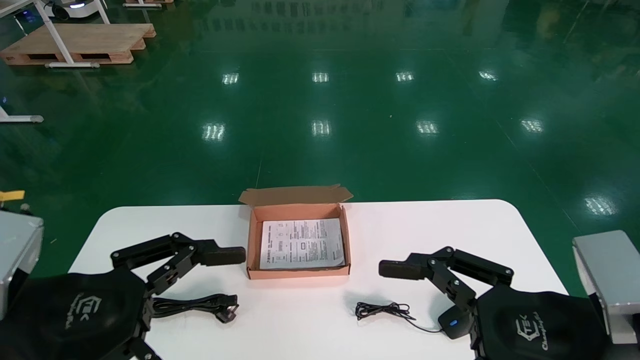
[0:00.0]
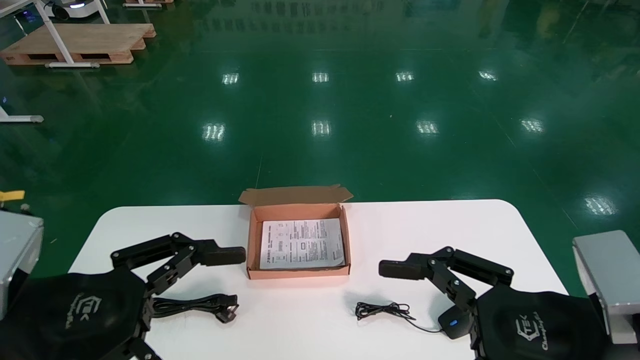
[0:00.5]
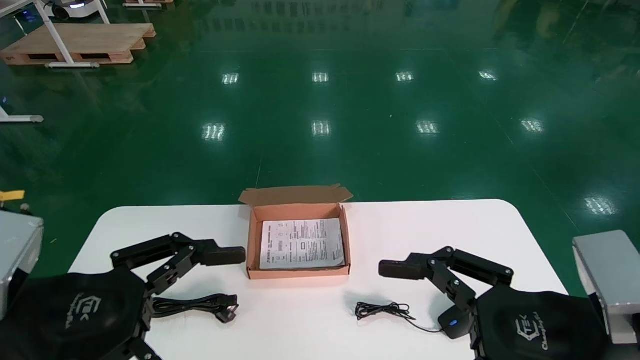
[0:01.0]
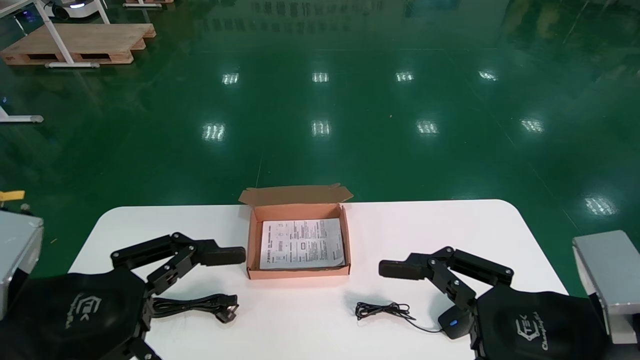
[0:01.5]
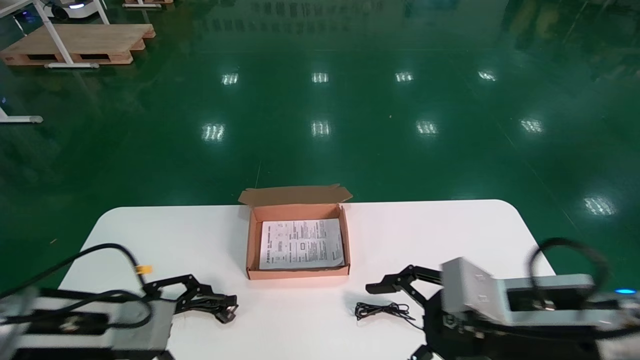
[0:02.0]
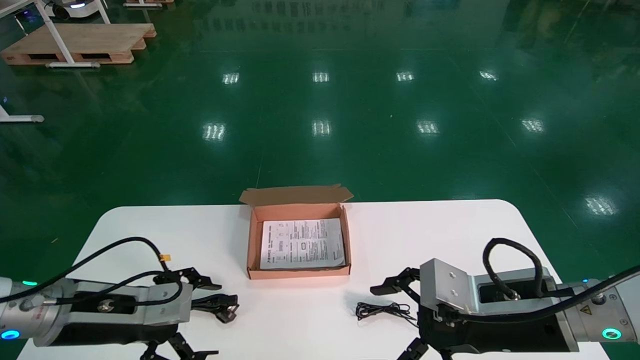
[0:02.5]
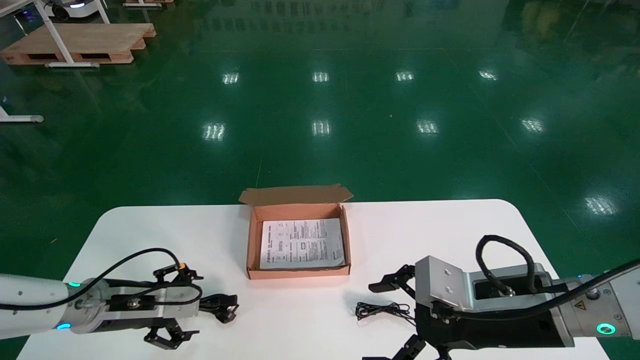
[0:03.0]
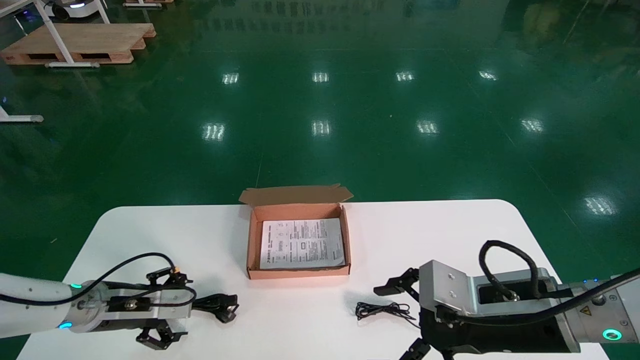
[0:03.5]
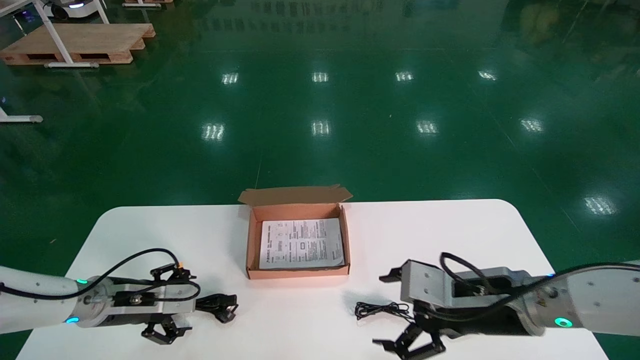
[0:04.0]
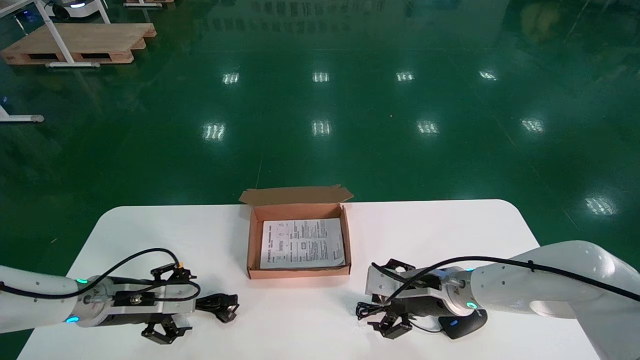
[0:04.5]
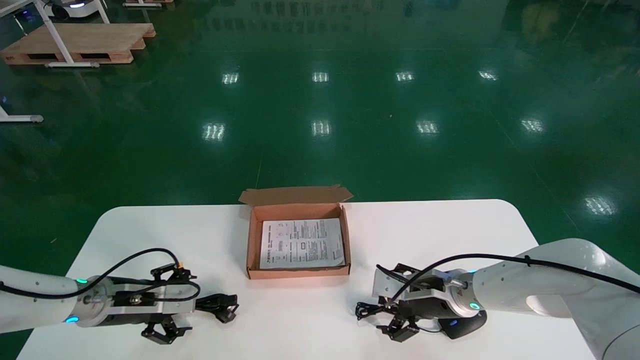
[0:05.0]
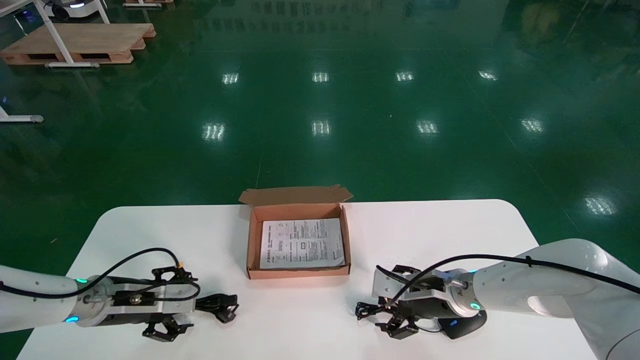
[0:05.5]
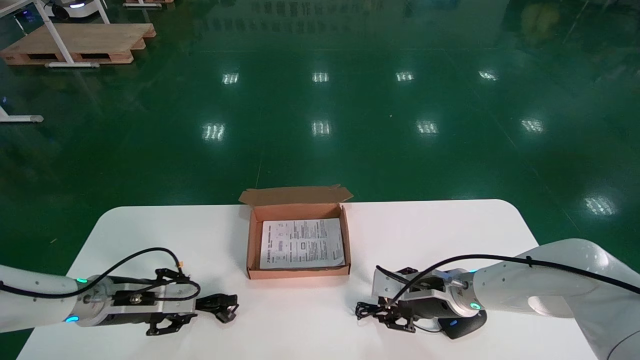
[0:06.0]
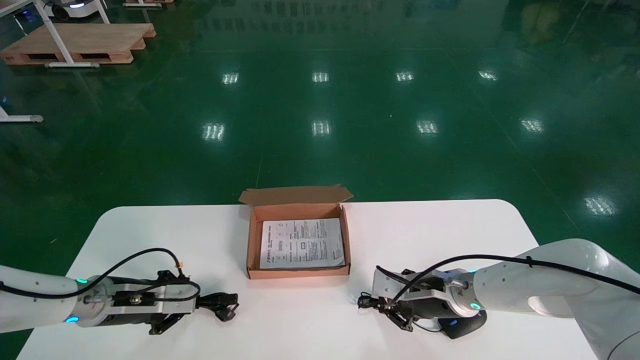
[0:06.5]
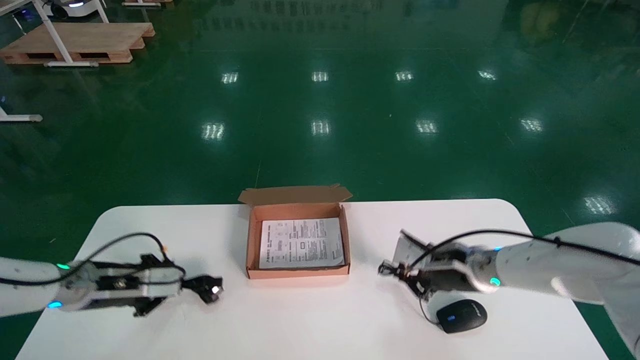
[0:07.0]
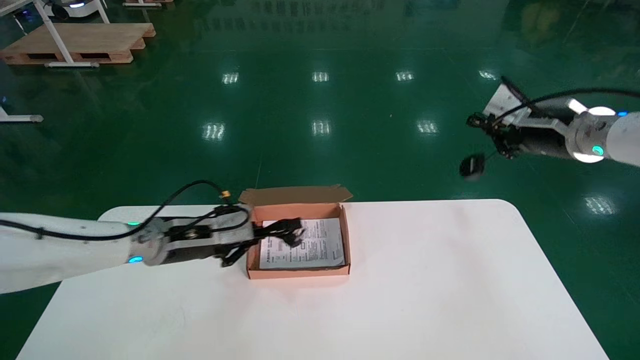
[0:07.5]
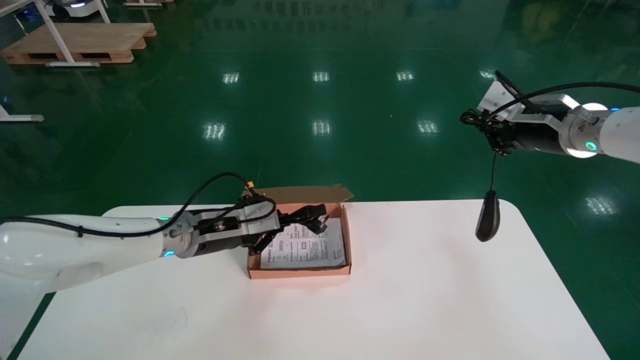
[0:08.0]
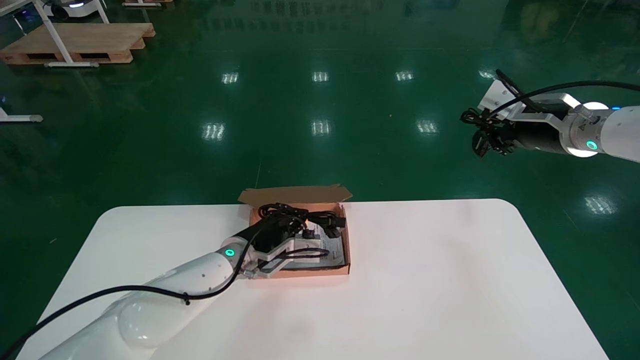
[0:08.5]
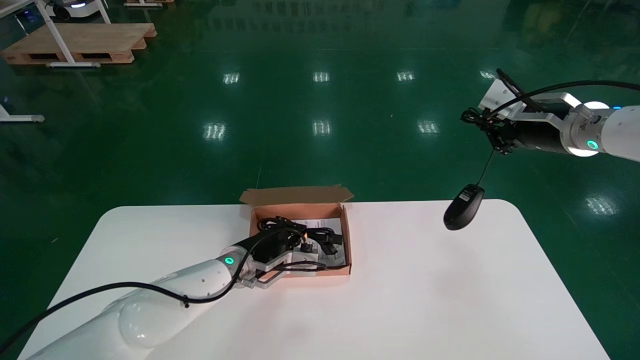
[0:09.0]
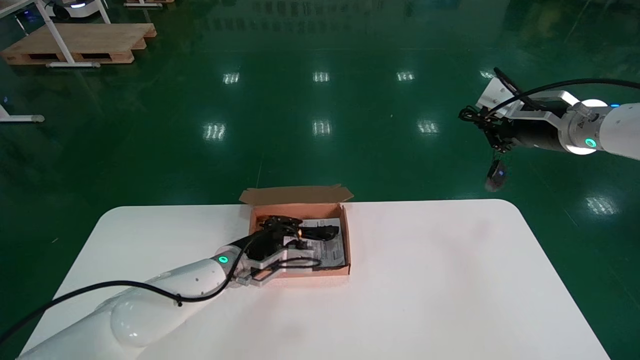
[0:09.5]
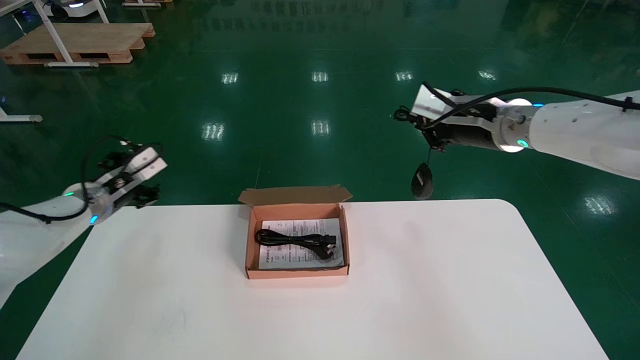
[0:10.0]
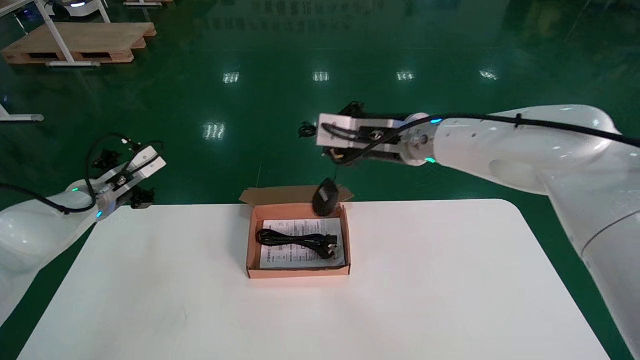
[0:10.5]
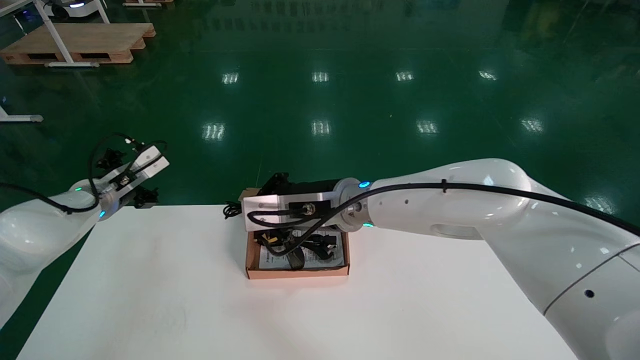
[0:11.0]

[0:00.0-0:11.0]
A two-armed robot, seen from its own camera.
Step, 0:02.0 to 0:07.0: Simultaneously pick up the mouse and power cord from the accessory packaging area.
0:00.0 to 0:02.0: The left gripper travels forward and downward by approximately 10 cm. The right gripper travels forward by about 10 cm.
0:02.0 to 0:03.5: The left gripper moves forward and downward, about 15 cm.
0:03.5 to 0:05.5: The right gripper travels forward and downward by about 20 cm.
0:05.5 to 0:07.5: The right gripper heads upward and to the right, covering approximately 25 cm, and closes up, while the left gripper is displaced upward and to the right by about 10 cm, and closes up.
0:07.5 to 0:09.0: The left gripper is displaced to the right and downward by some 15 cm.
0:09.0 to 0:11.0: The right gripper is displaced to the left by approximately 30 cm, while the left gripper travels to the left and upward by roughly 25 cm, and opens up.

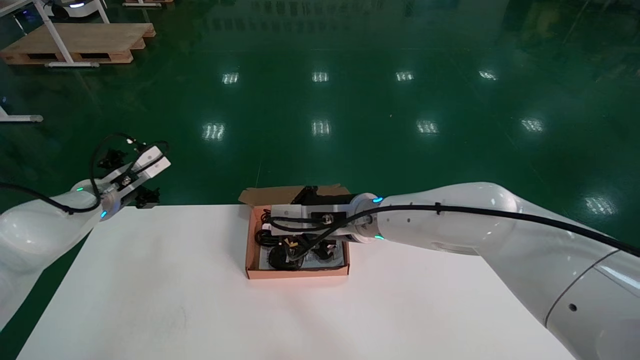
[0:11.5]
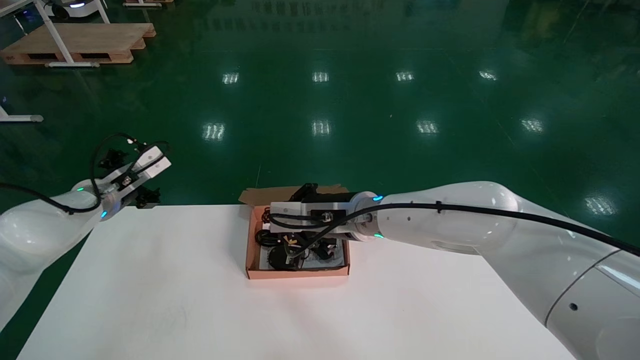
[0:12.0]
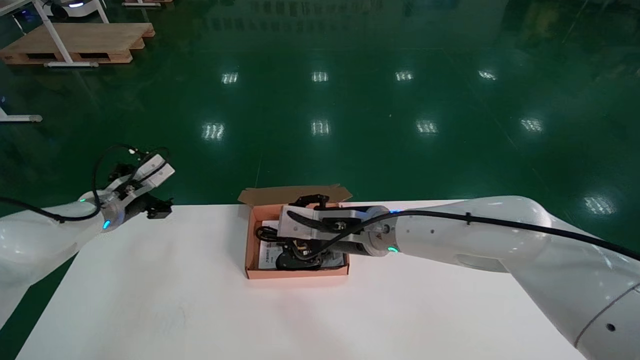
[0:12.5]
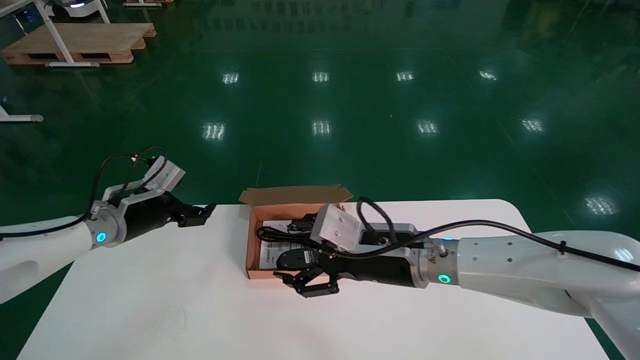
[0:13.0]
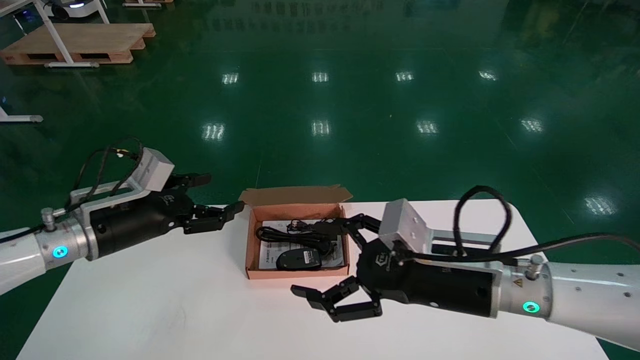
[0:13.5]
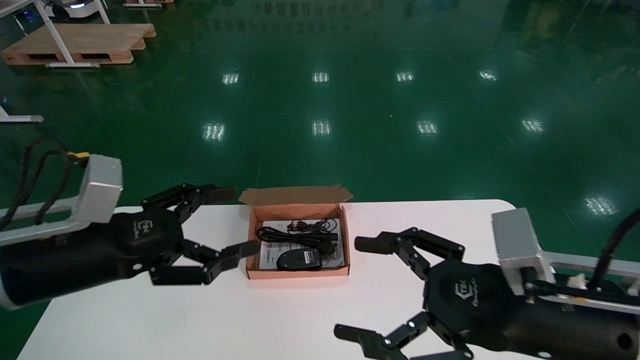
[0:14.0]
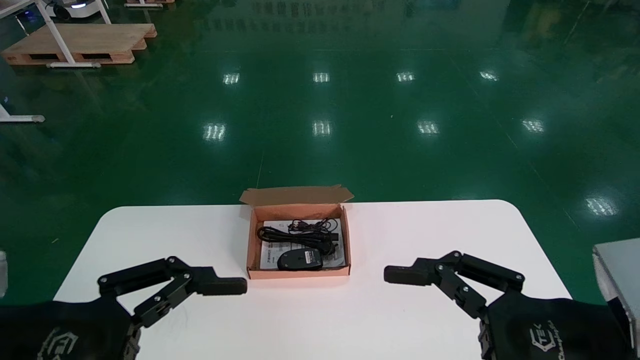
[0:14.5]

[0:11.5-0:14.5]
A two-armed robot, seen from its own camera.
0:11.5 to 0:13.0: The right gripper moves to the right and backward, approximately 10 cm, and opens up; the left gripper changes place by some 5 cm.
0:13.0 to 0:14.5: The right gripper shifts some 25 cm backward and to the right. The left gripper shifts roughly 30 cm backward.
